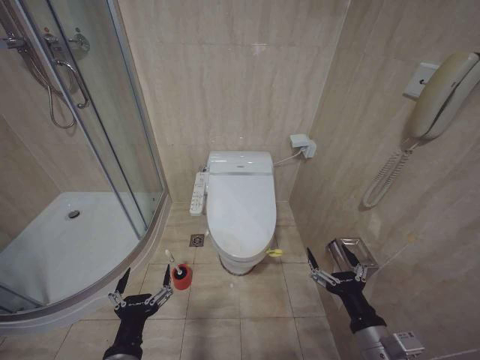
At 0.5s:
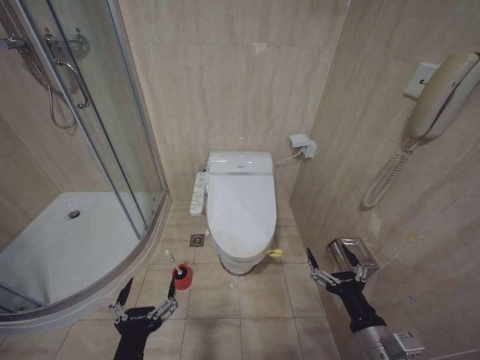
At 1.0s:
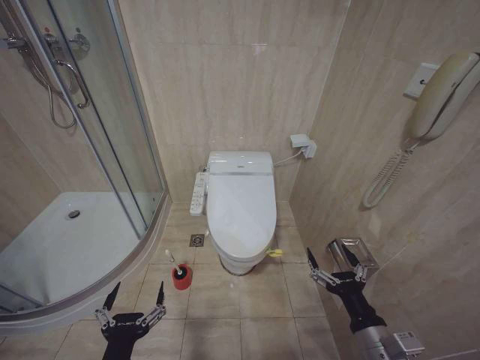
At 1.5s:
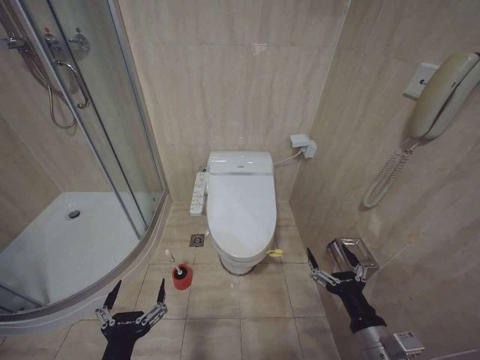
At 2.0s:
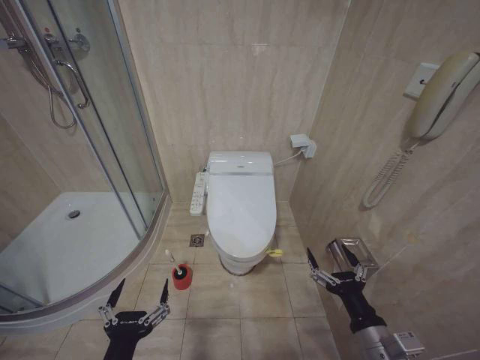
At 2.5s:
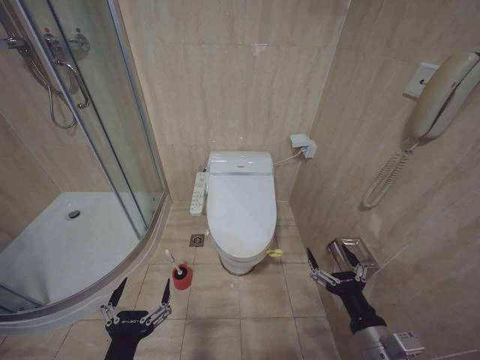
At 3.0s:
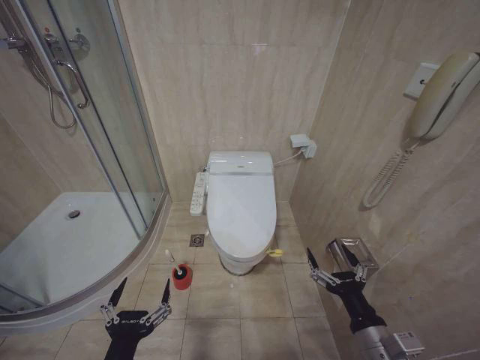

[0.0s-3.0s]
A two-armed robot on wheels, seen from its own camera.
Task of the whole recording: Open the toilet lid, clean the toilet bowl with a toilet brush, close the toilet lid, and flush.
0.0s to 1.5s: The grippers stay close to where they were, moving slightly.
1.5s to 3.0s: The two grippers keep their place.

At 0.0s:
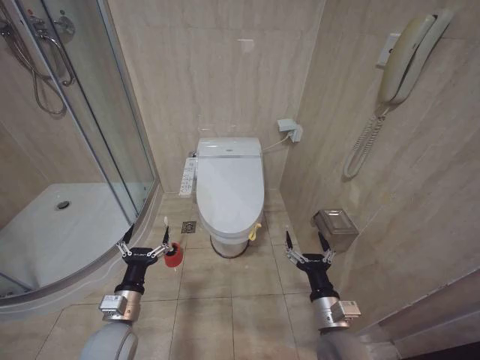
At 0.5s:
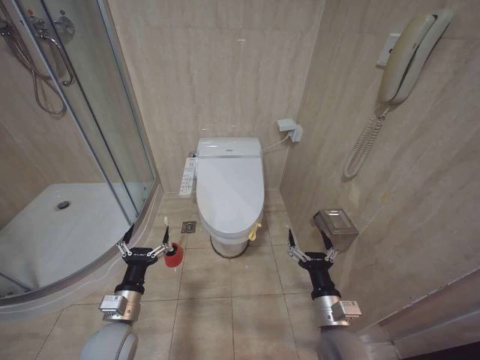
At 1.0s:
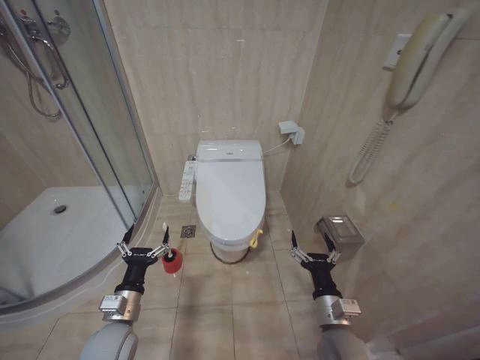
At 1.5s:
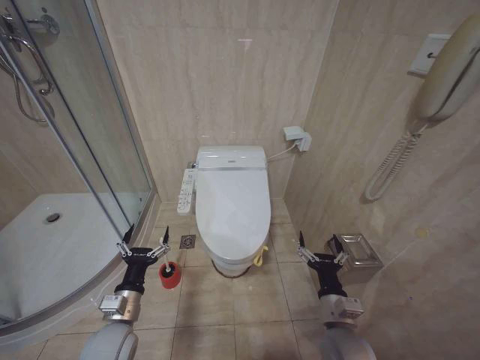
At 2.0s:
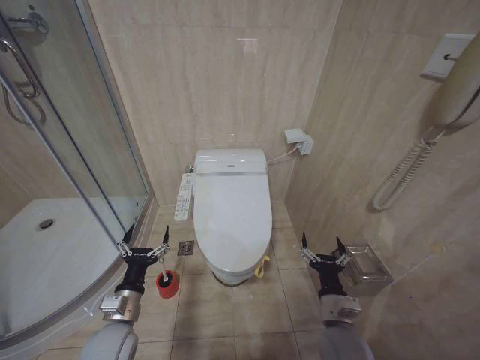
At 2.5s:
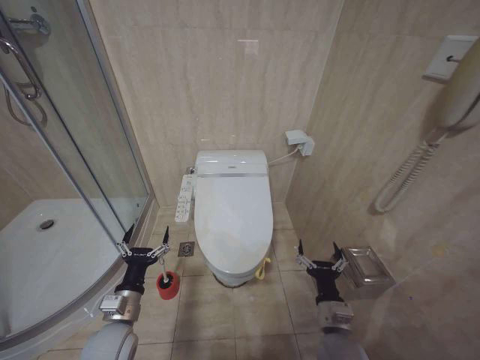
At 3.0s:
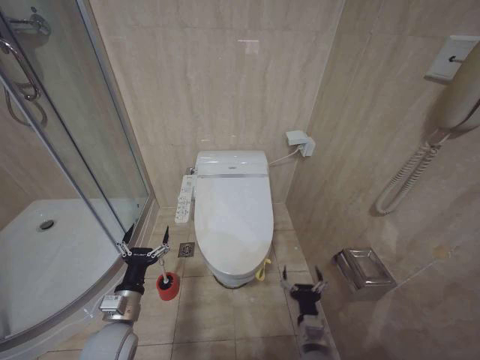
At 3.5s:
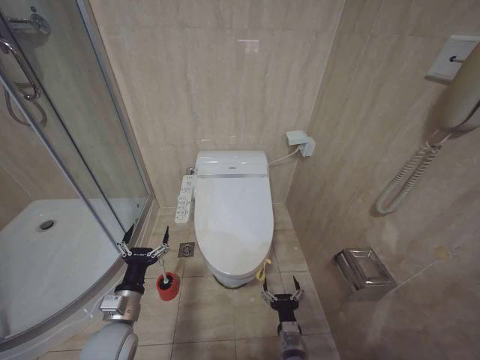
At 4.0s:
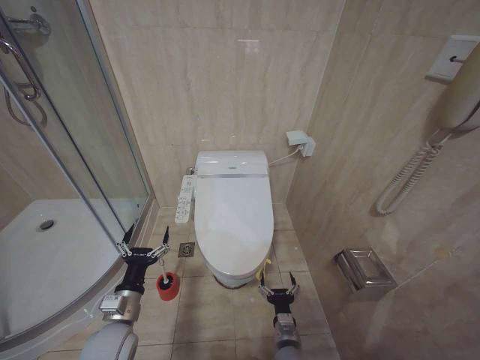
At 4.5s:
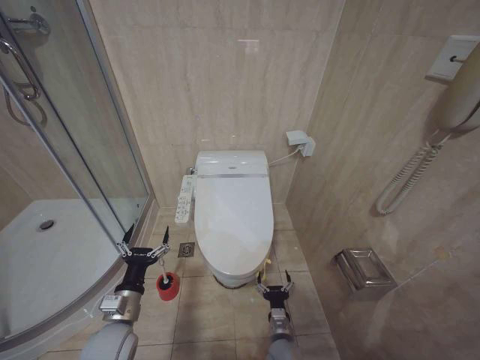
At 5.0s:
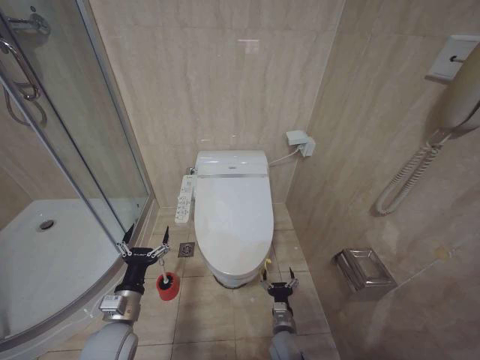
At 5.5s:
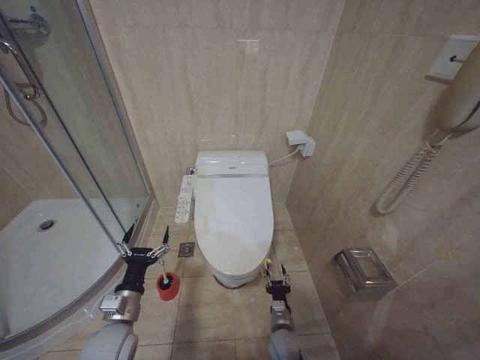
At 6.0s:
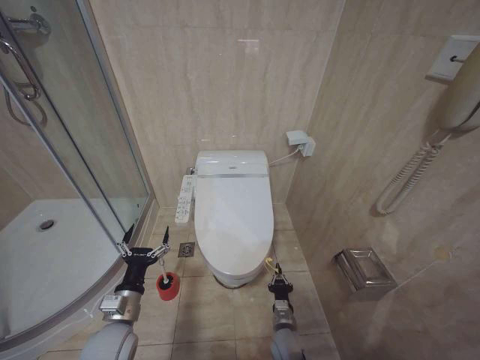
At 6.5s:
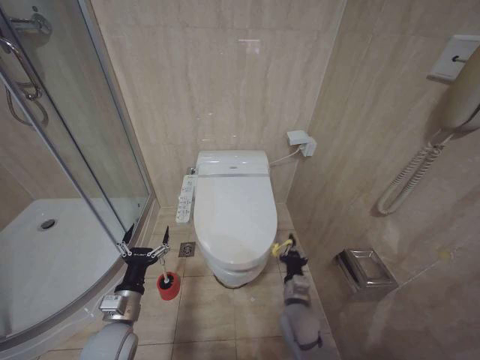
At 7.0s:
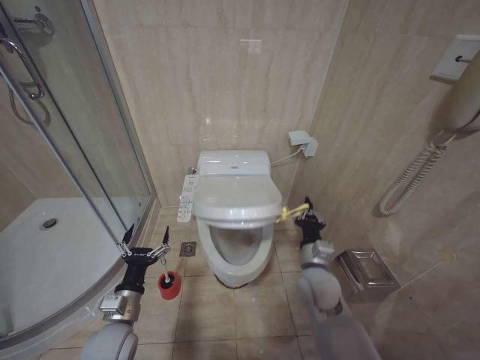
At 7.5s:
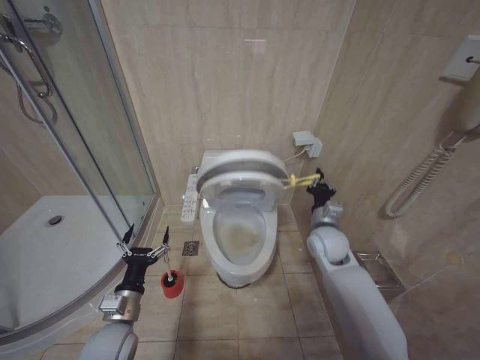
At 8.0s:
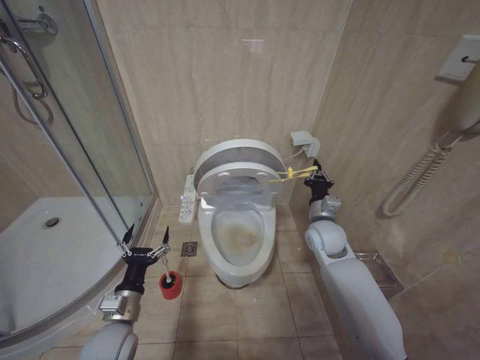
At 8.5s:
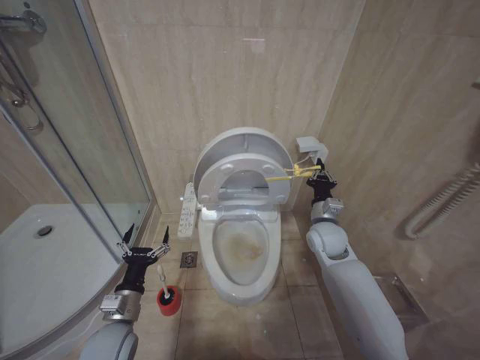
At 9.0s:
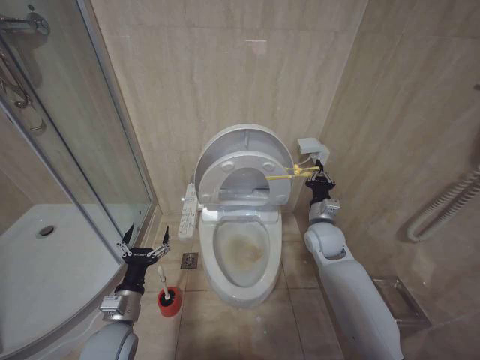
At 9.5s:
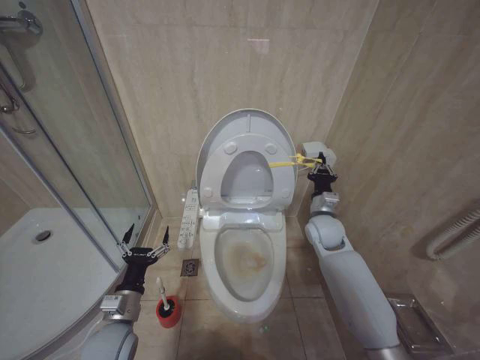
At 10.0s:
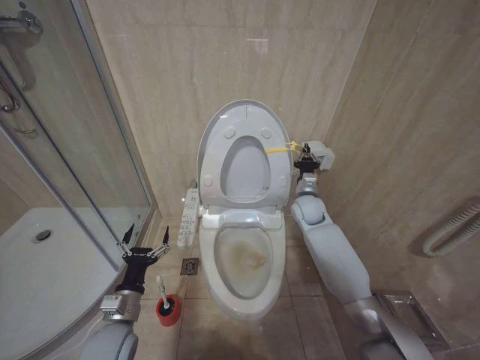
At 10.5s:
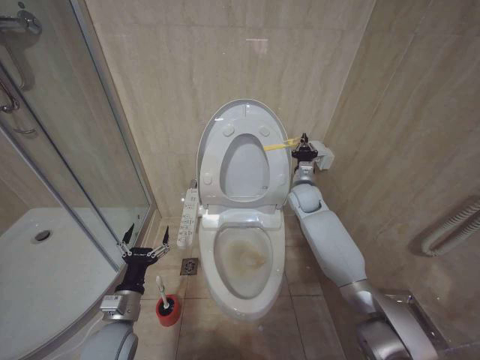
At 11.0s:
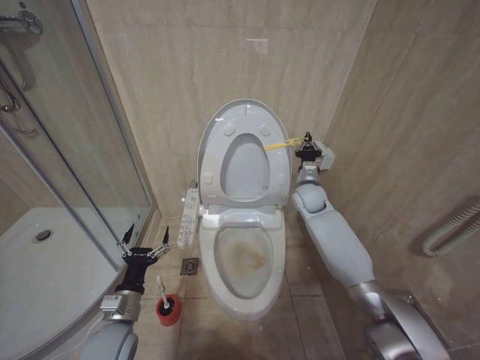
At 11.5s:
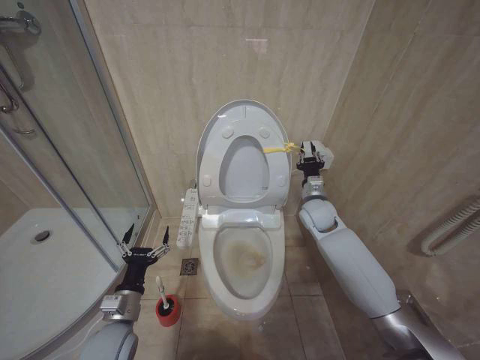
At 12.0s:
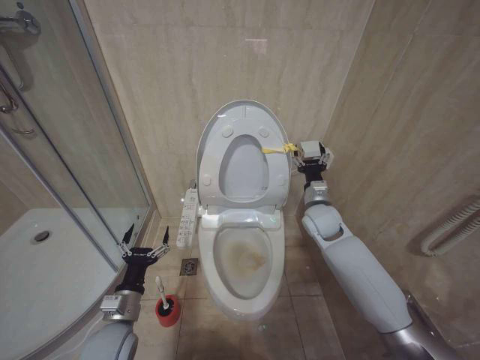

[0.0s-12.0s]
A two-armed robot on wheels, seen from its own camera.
Task of the whole recording: Open the toilet lid, clean the toilet bowl with a toilet brush, close the toilet lid, and flush.
2.0s to 4.0s: The right gripper is displaced downward and to the left by about 15 cm.
4.0s to 6.0s: The right gripper ends up approximately 5 cm from where it was, and closes up.
6.0s to 8.0s: The right gripper moves upward and forward, about 35 cm.
8.0s to 10.0s: The right gripper heads forward, covering roughly 10 cm.
10.0s to 12.0s: The right gripper moves some 5 cm, and opens.

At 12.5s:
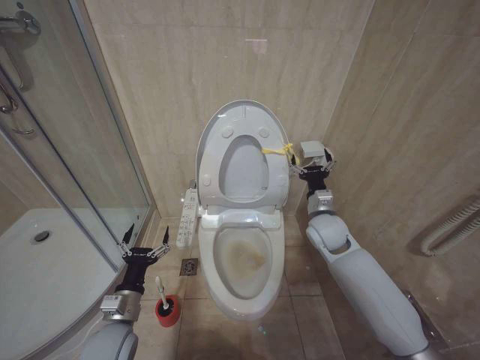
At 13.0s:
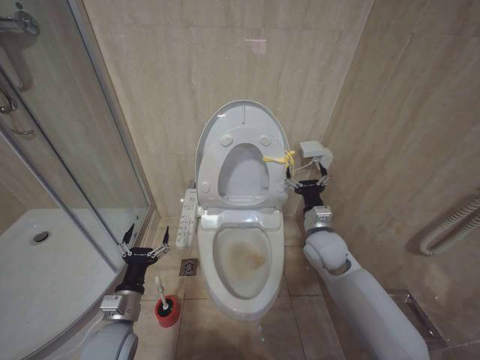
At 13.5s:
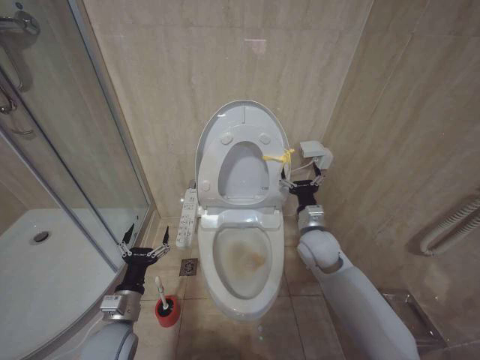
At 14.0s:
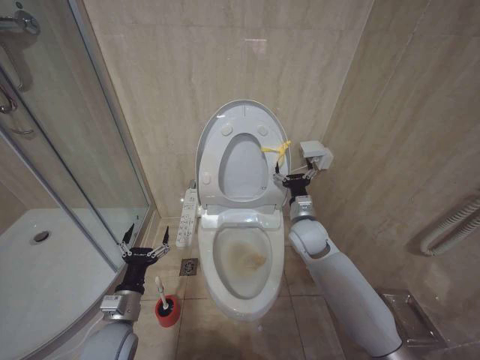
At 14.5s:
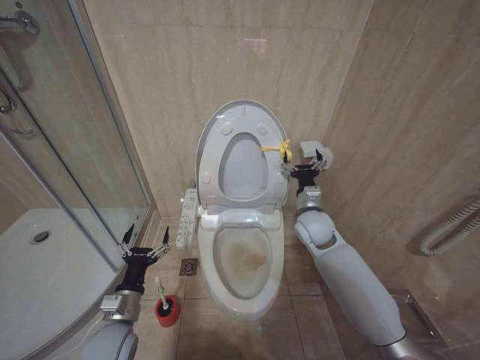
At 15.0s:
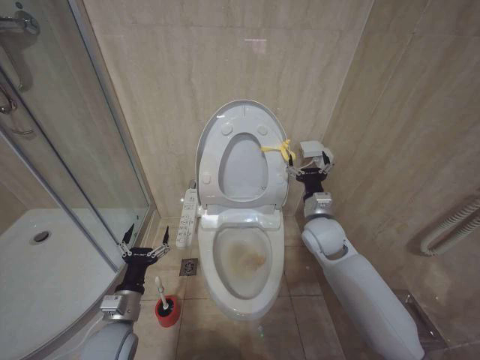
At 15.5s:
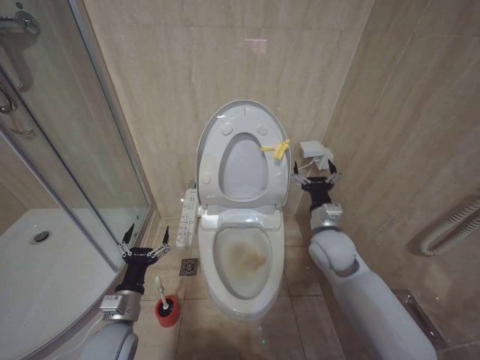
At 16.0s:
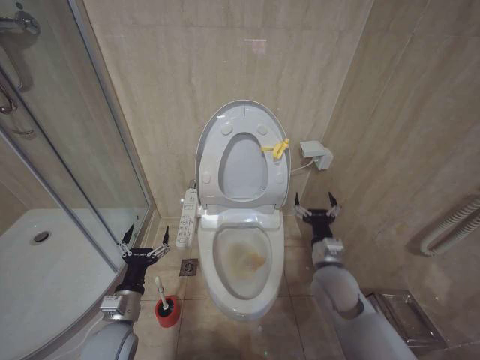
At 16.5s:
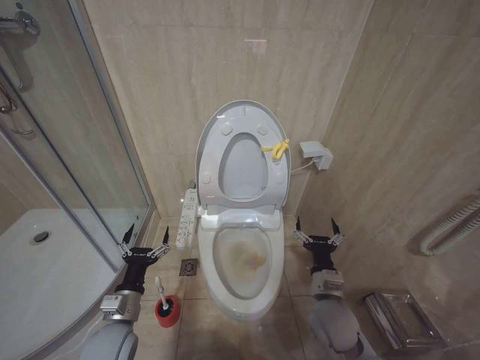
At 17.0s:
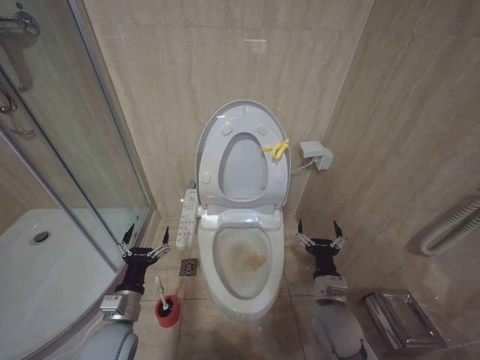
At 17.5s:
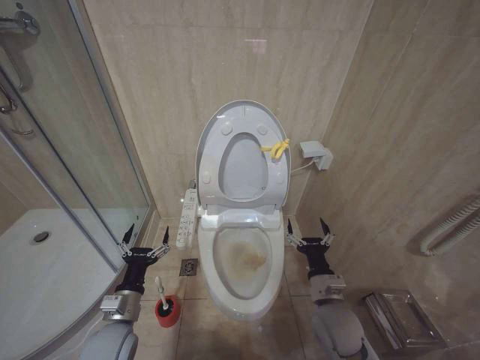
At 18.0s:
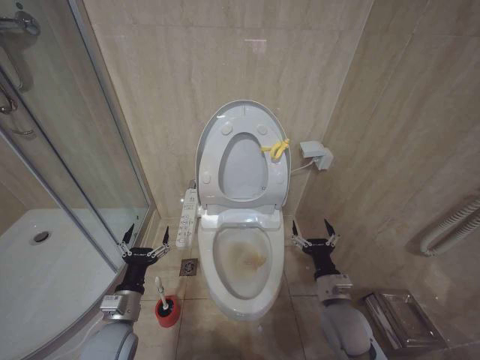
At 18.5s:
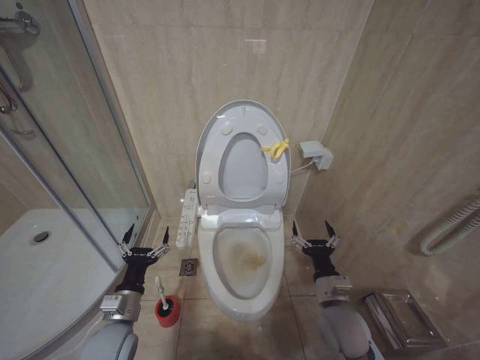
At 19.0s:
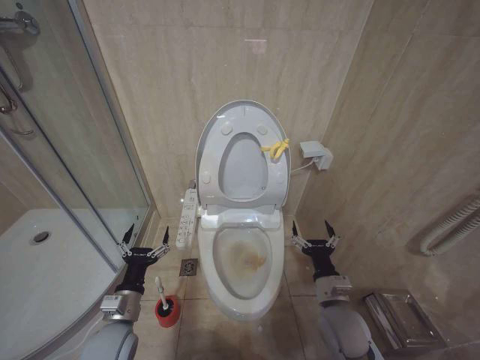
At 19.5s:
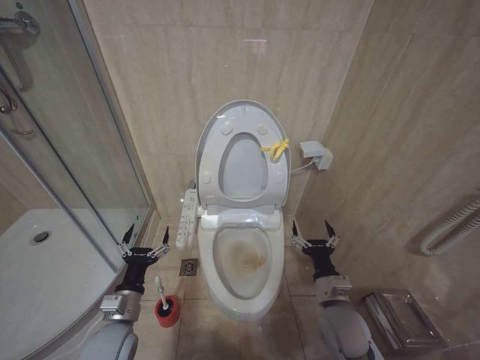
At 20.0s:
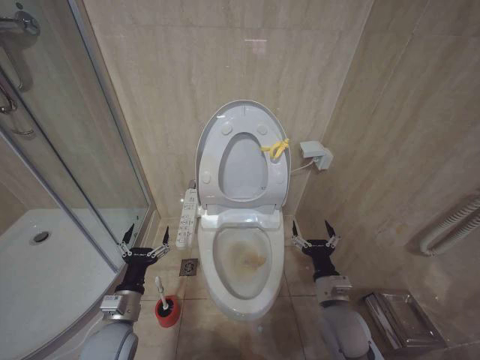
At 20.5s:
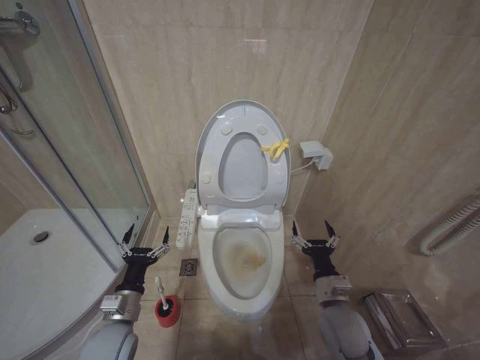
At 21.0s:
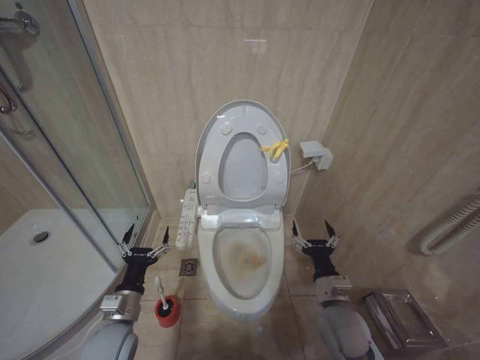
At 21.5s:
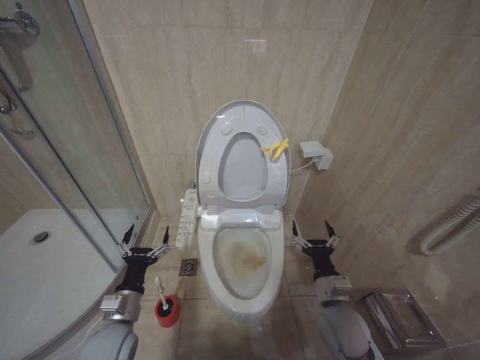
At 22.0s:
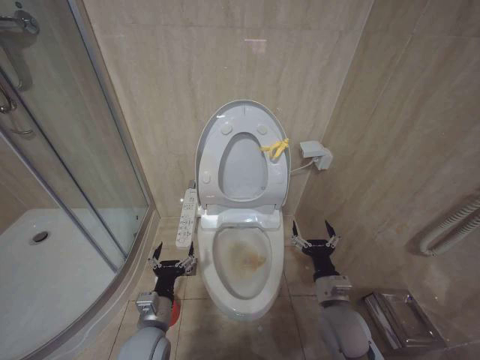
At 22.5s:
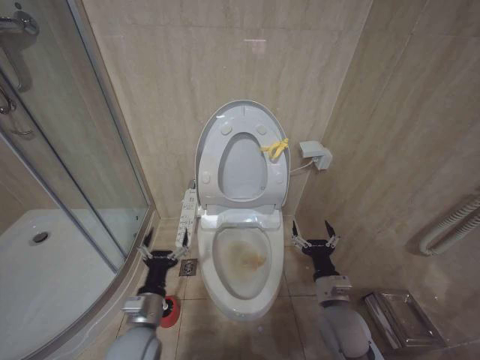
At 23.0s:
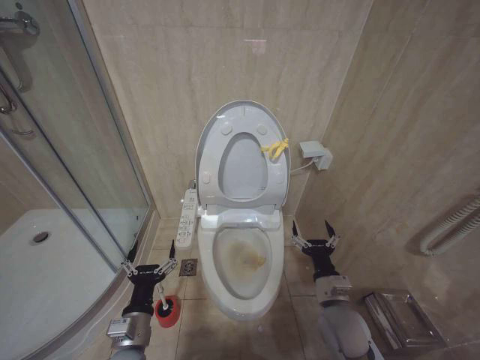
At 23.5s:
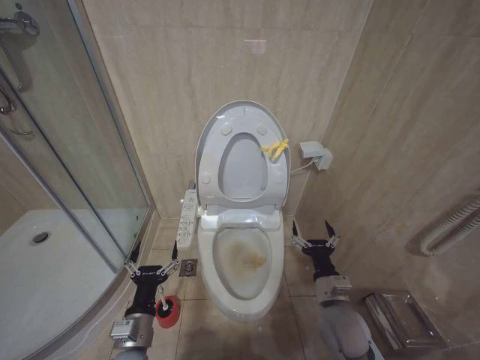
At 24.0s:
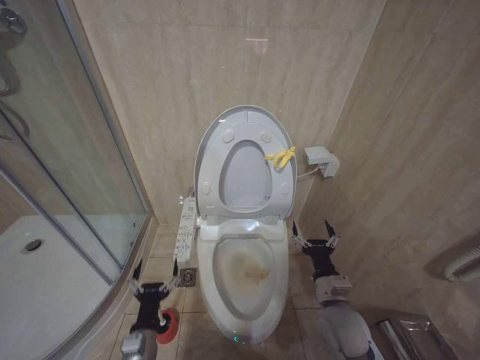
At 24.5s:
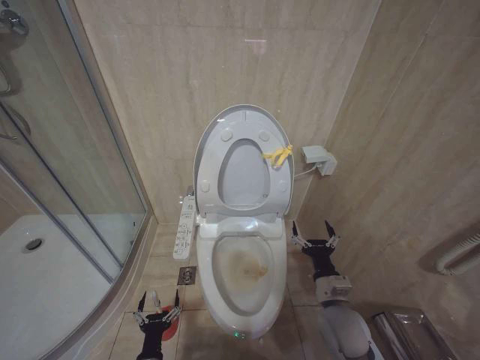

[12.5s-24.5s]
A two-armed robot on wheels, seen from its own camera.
Task of the whole recording: Open the toilet lid, clean the toilet bowl with a toilet brush, close the toilet lid, and flush.
12.5s to 14.5s: The grippers stay close to where they were, moving slightly.
14.5s to 16.5s: The right gripper shifts about 20 cm backward and downward.
18.5s to 20.5s: Both grippers stay about where they are.
20.5s to 22.5s: The left gripper shifts approximately 5 cm to the right.
22.5s to 24.5s: The left gripper goes about 20 cm downward and backward.
